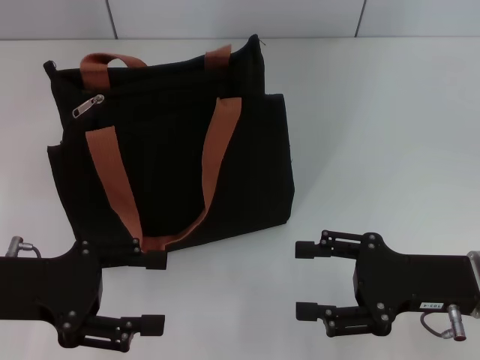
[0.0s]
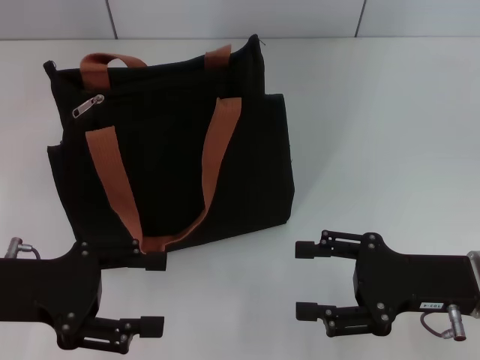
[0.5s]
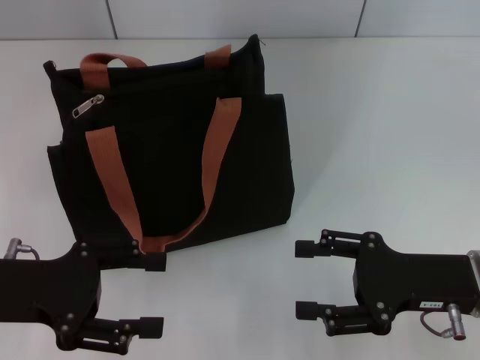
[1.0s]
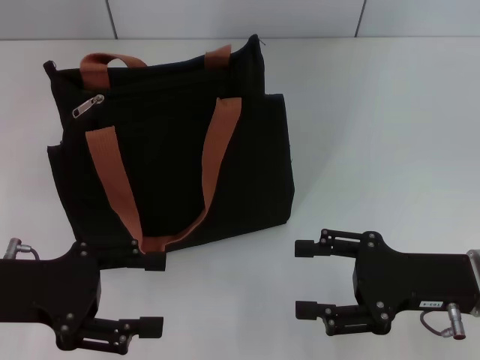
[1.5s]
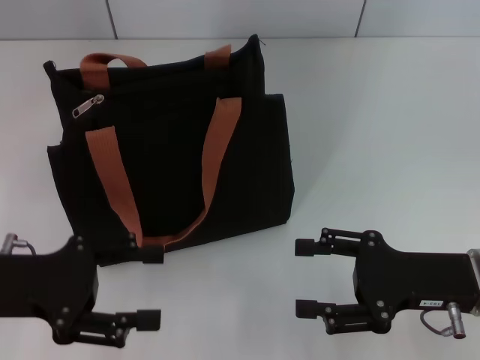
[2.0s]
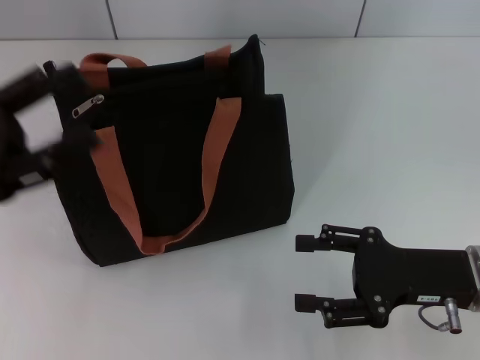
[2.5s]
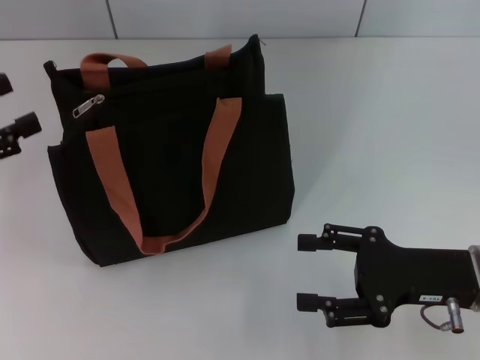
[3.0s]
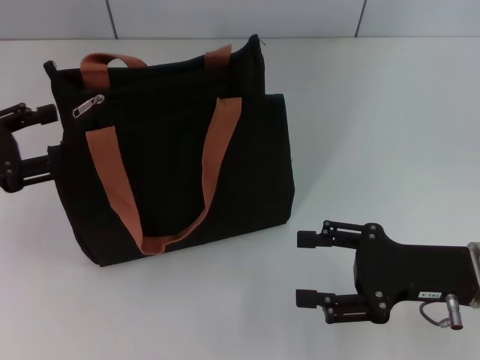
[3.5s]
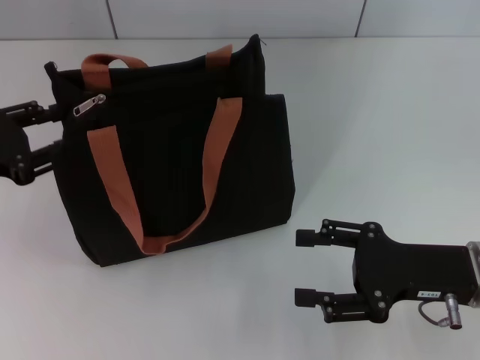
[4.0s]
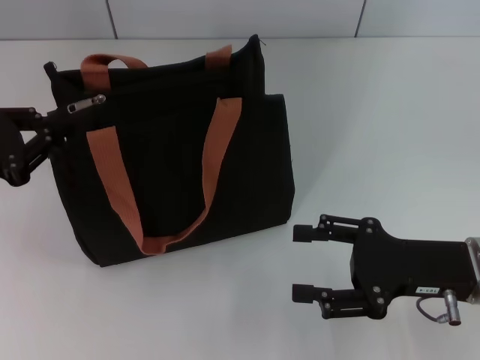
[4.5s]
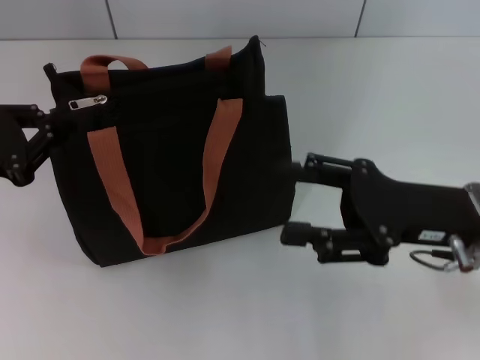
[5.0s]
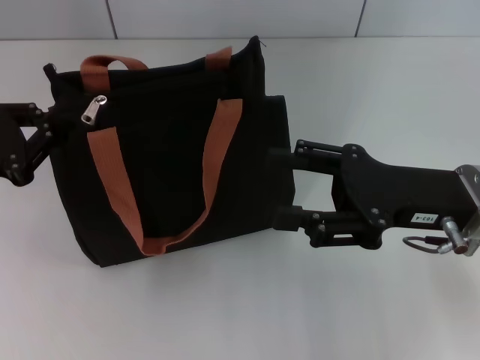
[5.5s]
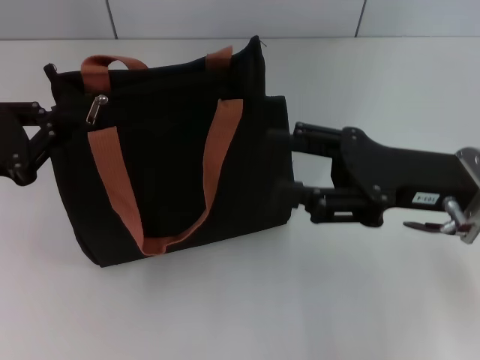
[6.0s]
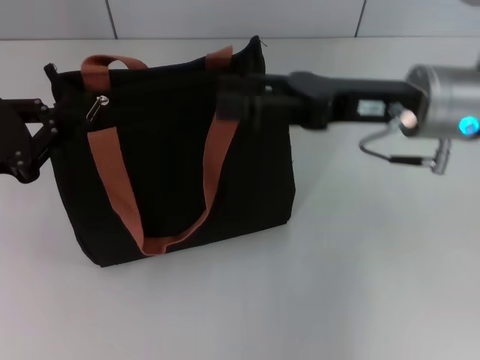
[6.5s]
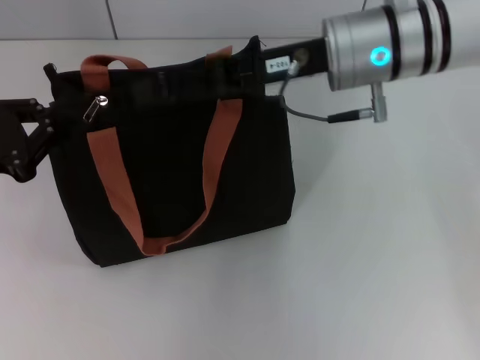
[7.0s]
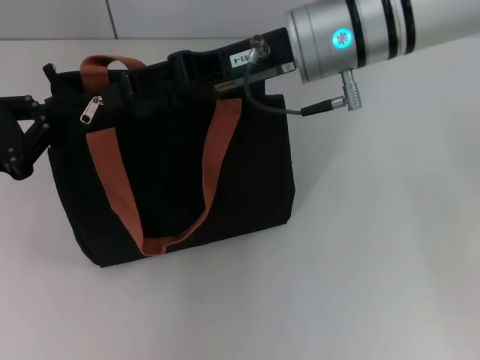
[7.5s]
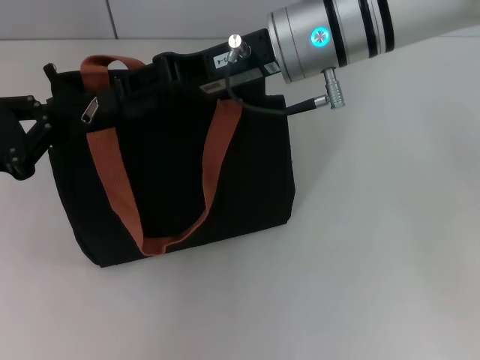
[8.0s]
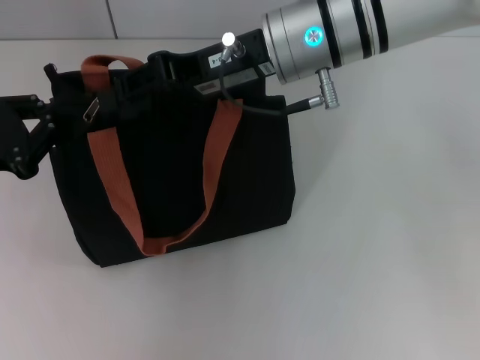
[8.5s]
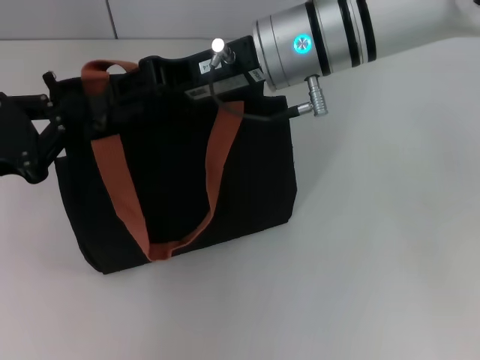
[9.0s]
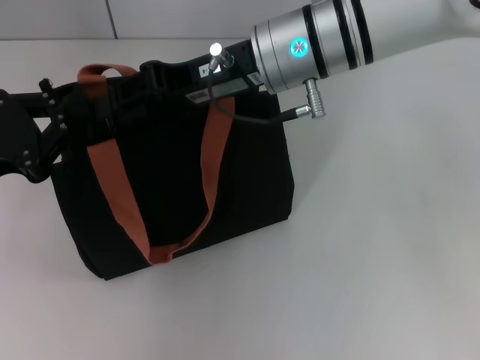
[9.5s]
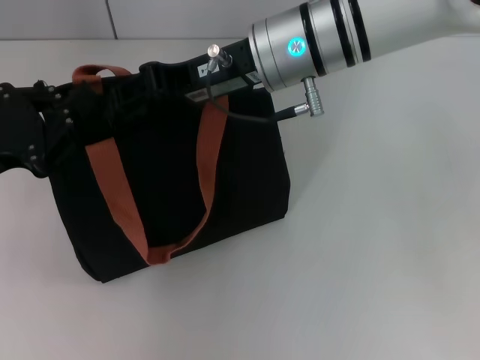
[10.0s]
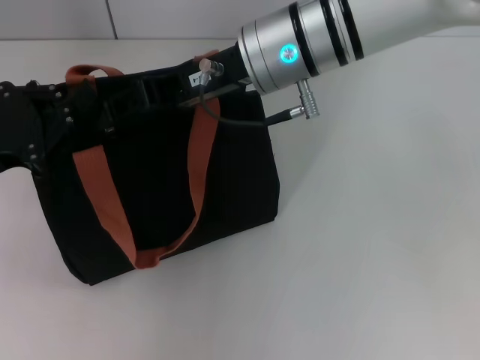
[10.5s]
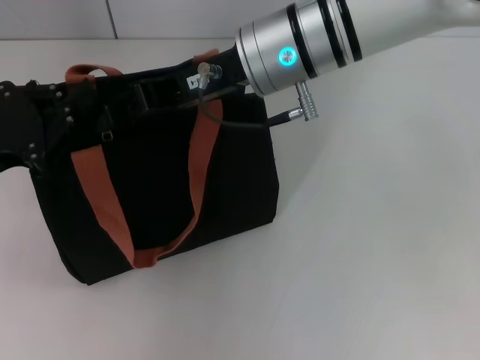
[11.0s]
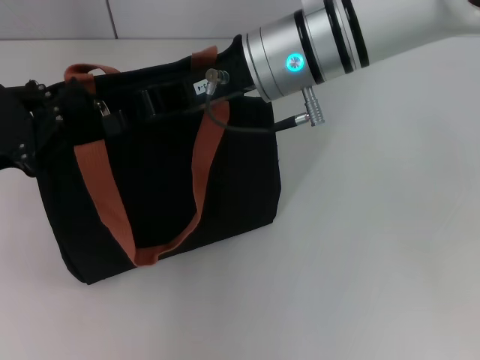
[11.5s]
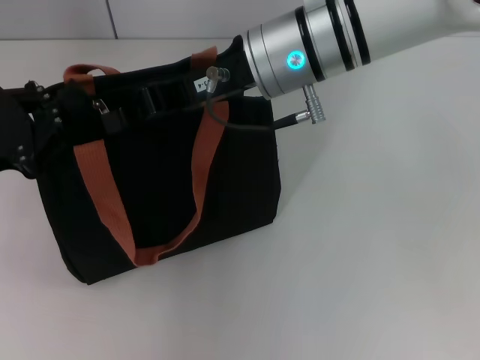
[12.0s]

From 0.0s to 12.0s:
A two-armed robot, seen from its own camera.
From 0.0s to 2.0s: The two grippers keep their place.
From 2.0s to 4.0s: The left gripper travels forward and to the left by roughly 10 cm.
From 4.0s to 6.0s: The right gripper goes approximately 5 cm upward. Meanwhile the left gripper closes up.
From 6.0s to 8.0s: The right gripper shifts about 20 cm to the left, forward and upward.
From 8.0s to 10.0s: The right gripper closes its fingers.
From 10.0s to 12.0s: The right gripper closes its fingers.

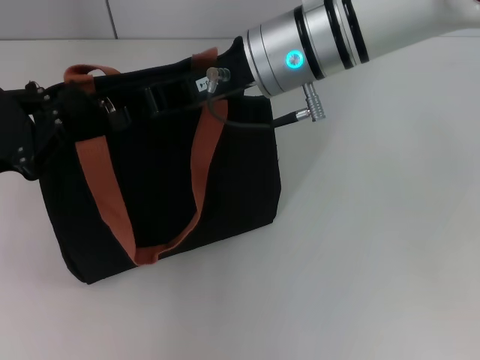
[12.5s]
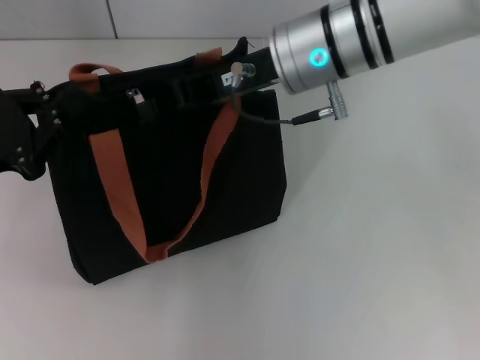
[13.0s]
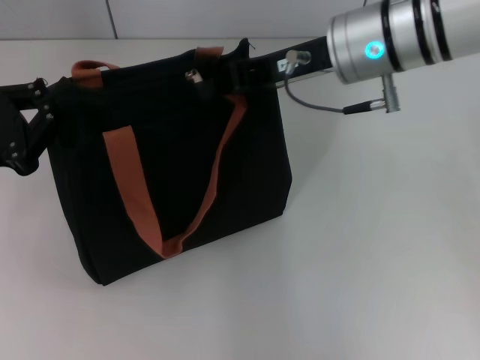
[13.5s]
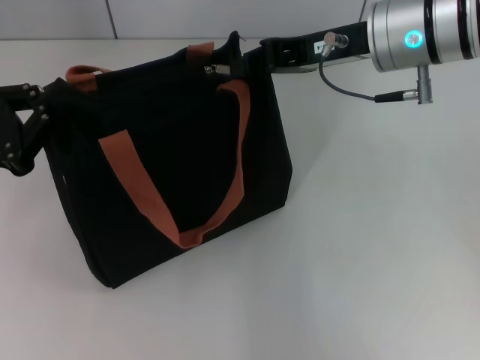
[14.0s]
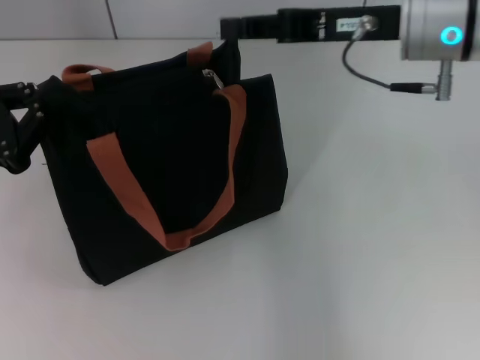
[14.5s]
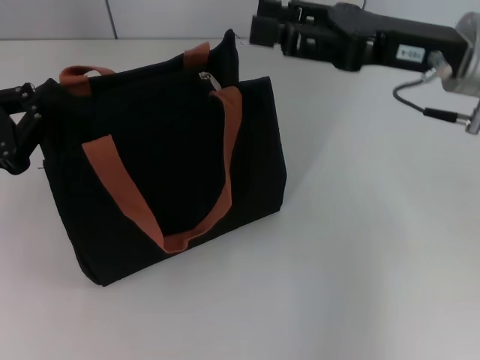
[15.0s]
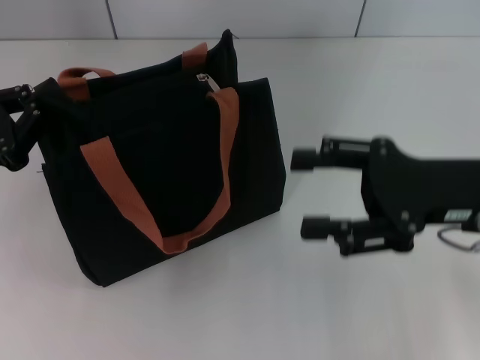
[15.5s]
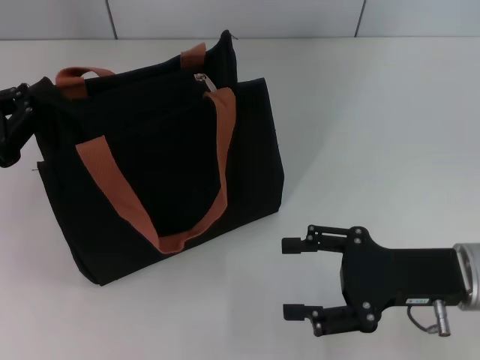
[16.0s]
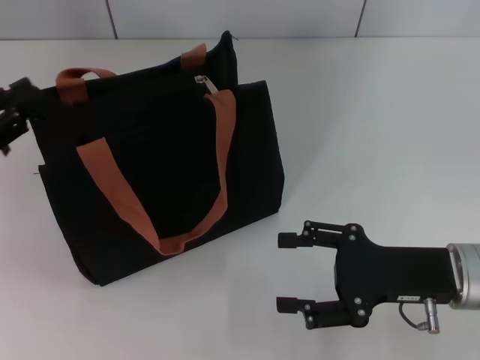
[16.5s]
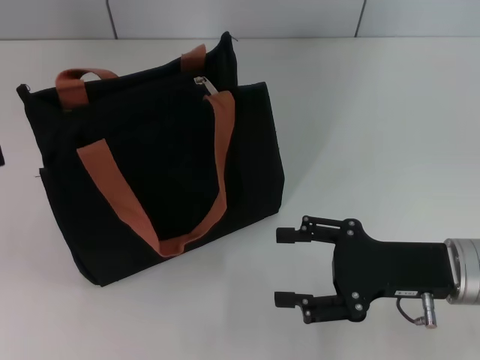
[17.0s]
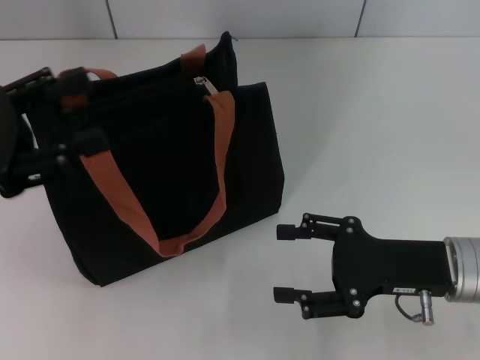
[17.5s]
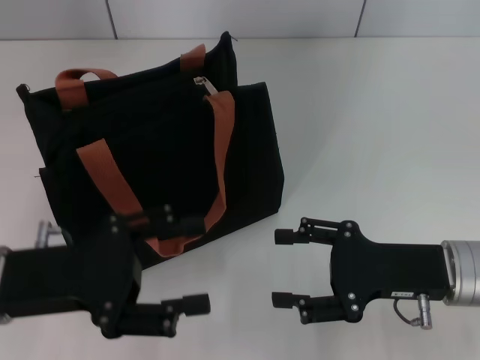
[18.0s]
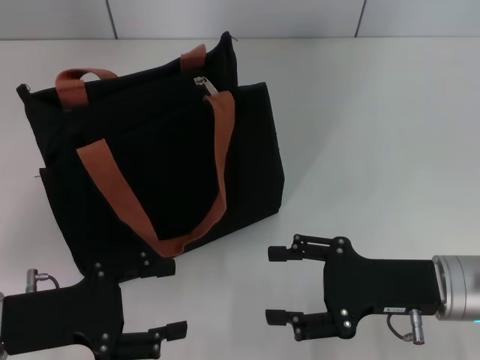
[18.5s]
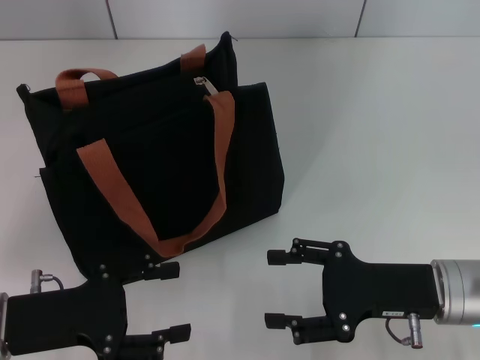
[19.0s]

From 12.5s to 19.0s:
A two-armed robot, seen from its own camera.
Step, from 12.5s to 14.5s: Pull up the zipper with your right hand.
Step, from 15.0s to 17.0s: Grab the zipper with your left hand.
From 12.5s to 14.5s: The right gripper travels to the right by about 10 cm.
From 14.5s to 17.0s: The left gripper goes approximately 10 cm to the left and upward, and opens up; the right gripper travels downward and backward by about 20 cm, and opens.
From 17.0s to 19.0s: The left gripper moves to the right and downward, about 20 cm.

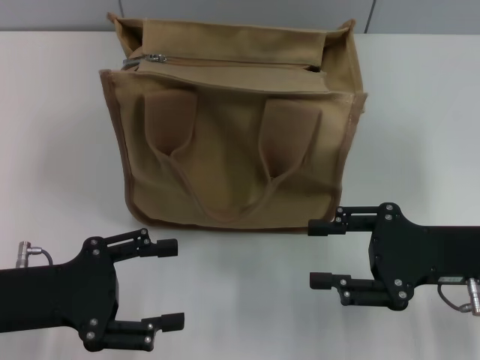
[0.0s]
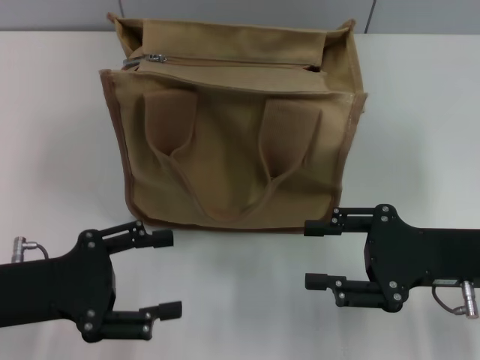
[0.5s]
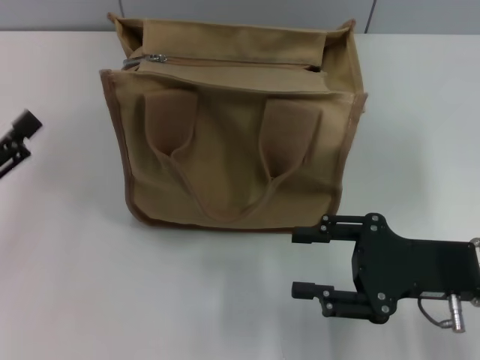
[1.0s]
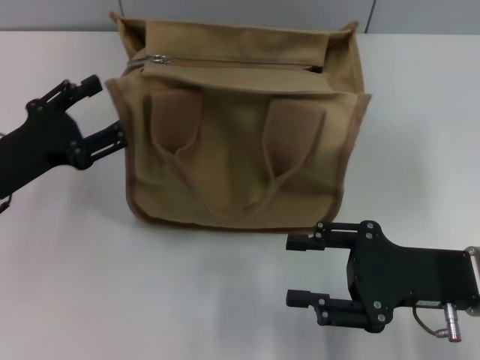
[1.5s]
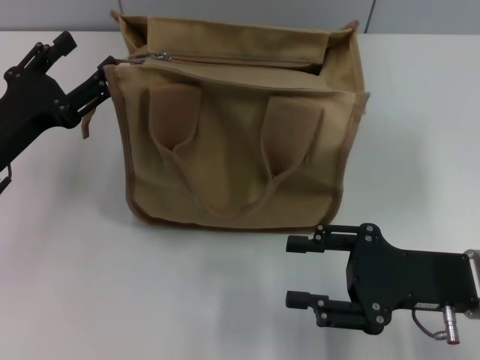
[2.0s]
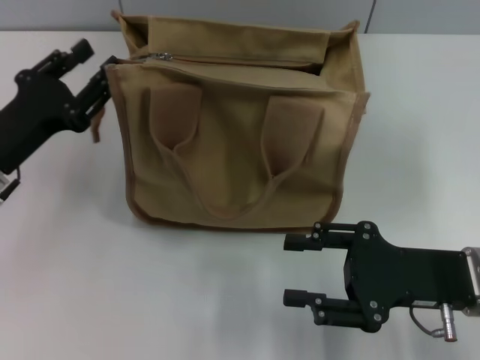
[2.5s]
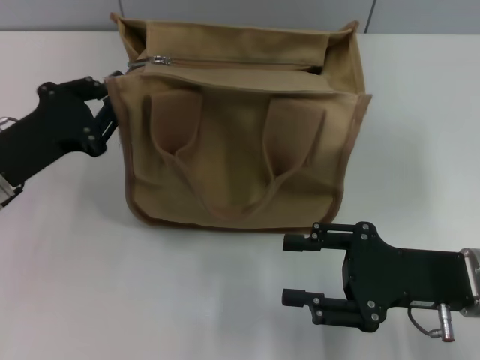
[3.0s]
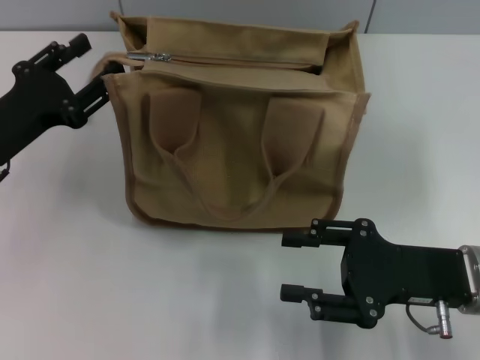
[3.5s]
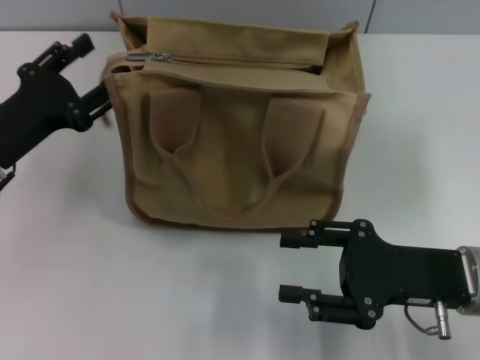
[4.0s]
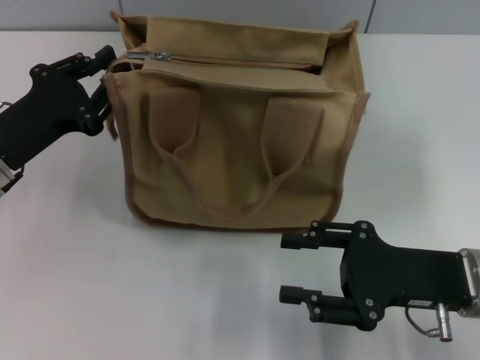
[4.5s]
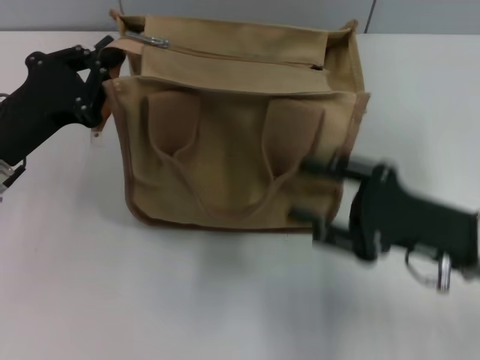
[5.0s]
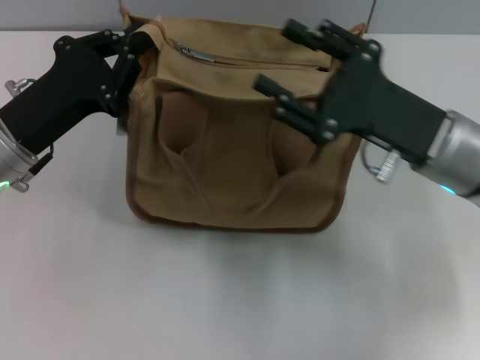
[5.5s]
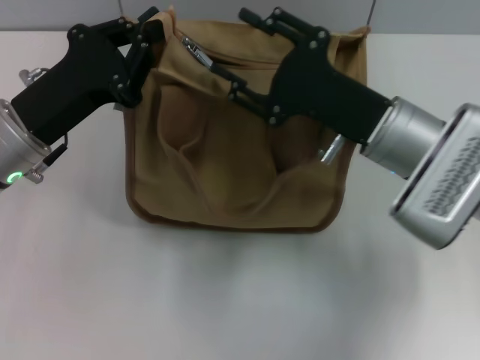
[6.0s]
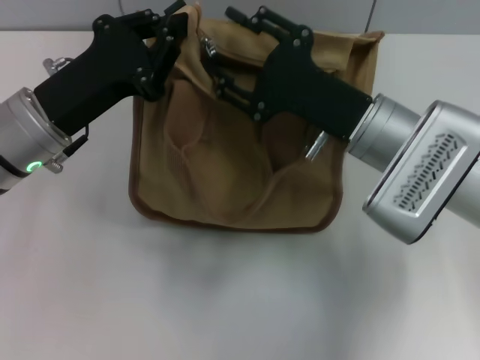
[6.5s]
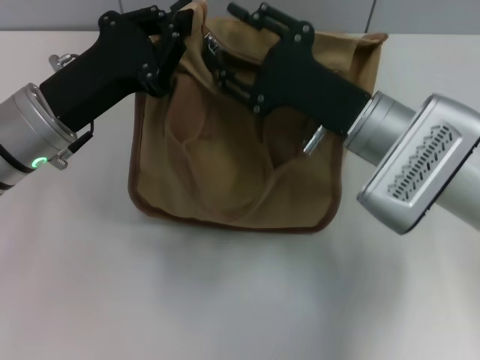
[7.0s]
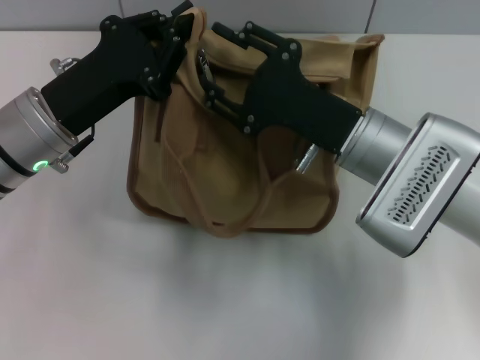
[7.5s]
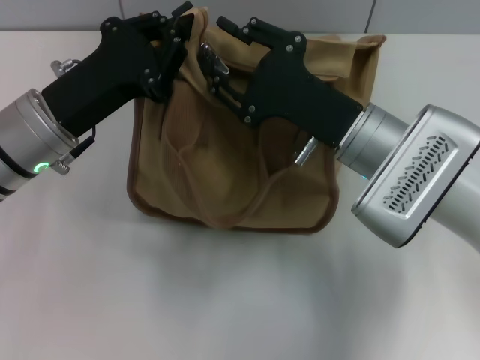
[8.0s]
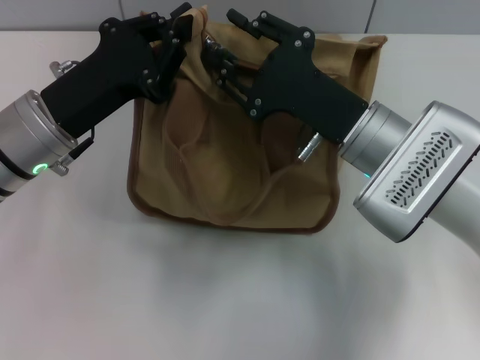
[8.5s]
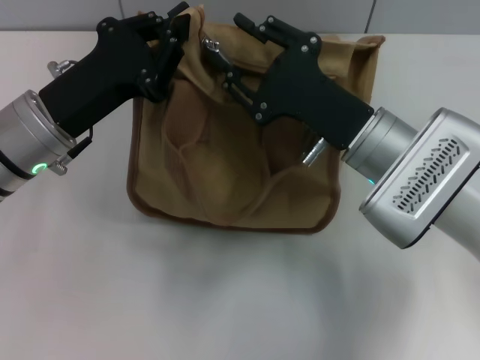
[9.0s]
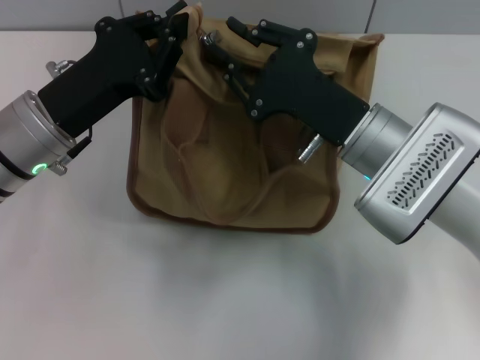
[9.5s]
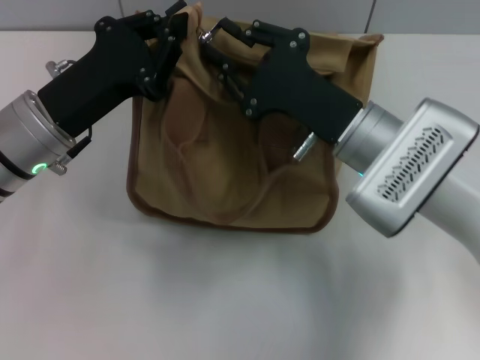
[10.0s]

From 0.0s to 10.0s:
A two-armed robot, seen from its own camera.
From 0.0s to 2.0s: The left gripper goes about 10 cm forward.
From 2.0s to 4.0s: The left gripper closes, then reopens.
From 4.0s to 6.0s: The right gripper moves forward and to the left, approximately 10 cm. The left gripper changes place by approximately 5 cm, and closes its fingers.
From 8.0s to 10.0s: The two grippers keep their place.
